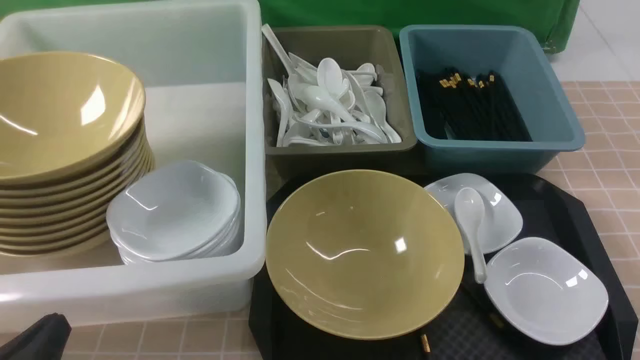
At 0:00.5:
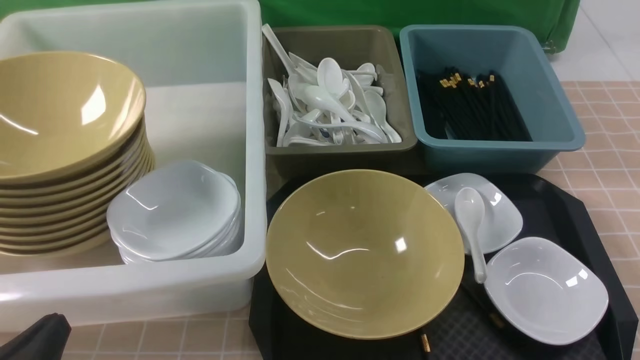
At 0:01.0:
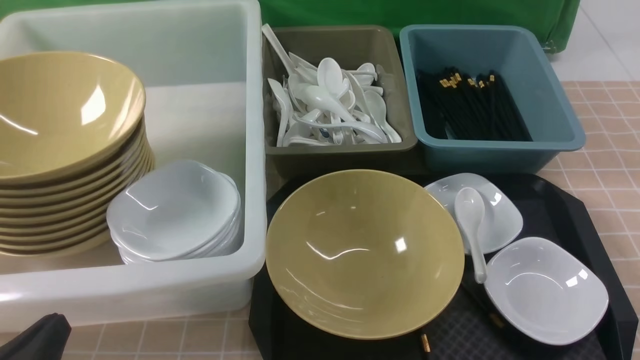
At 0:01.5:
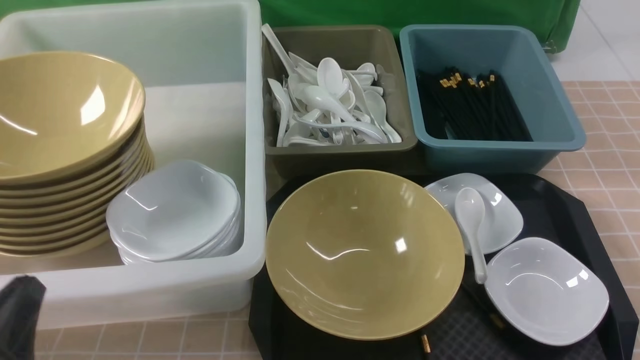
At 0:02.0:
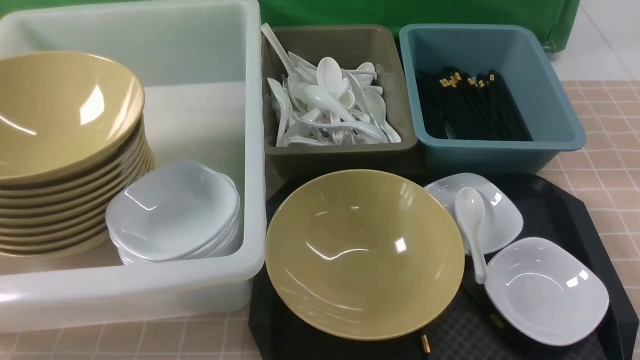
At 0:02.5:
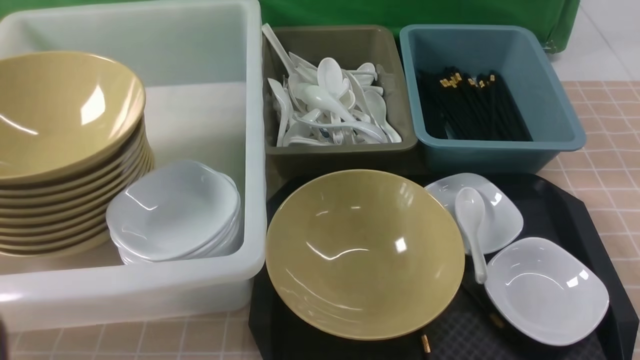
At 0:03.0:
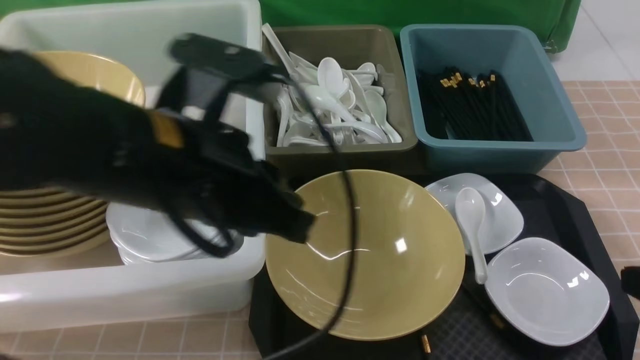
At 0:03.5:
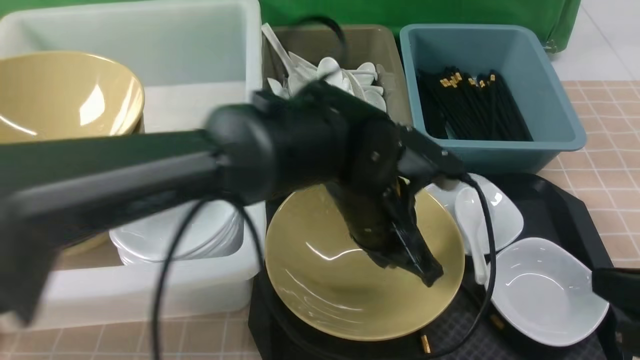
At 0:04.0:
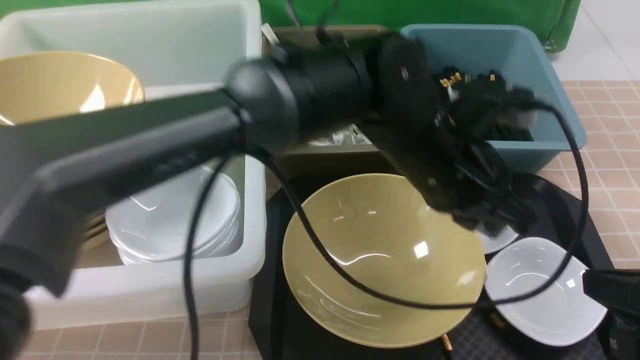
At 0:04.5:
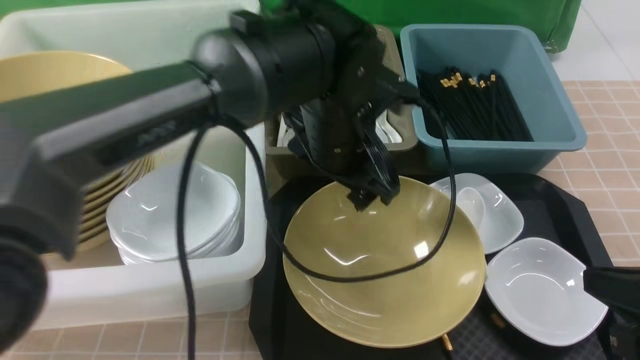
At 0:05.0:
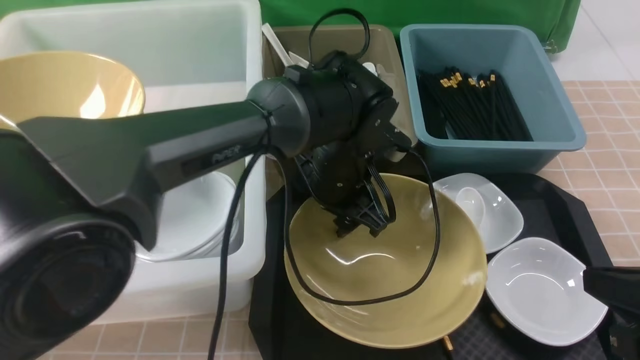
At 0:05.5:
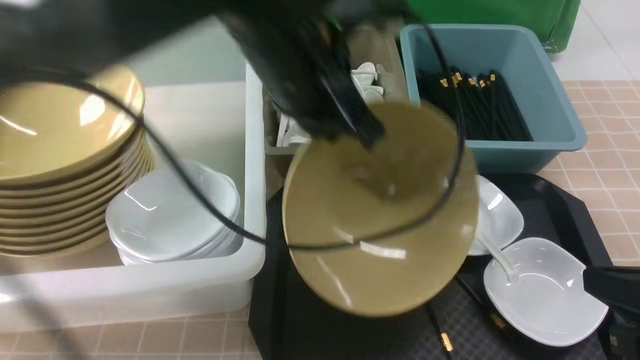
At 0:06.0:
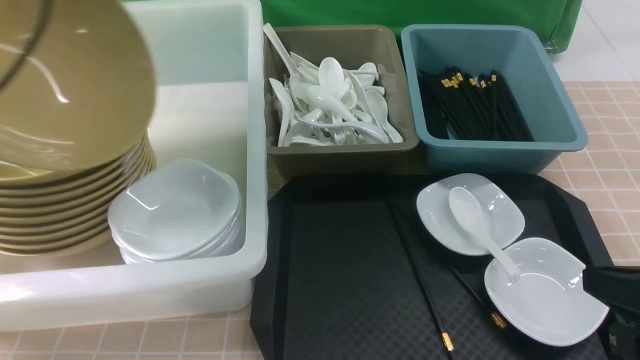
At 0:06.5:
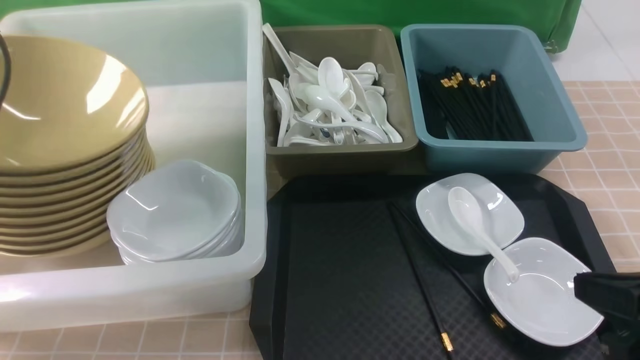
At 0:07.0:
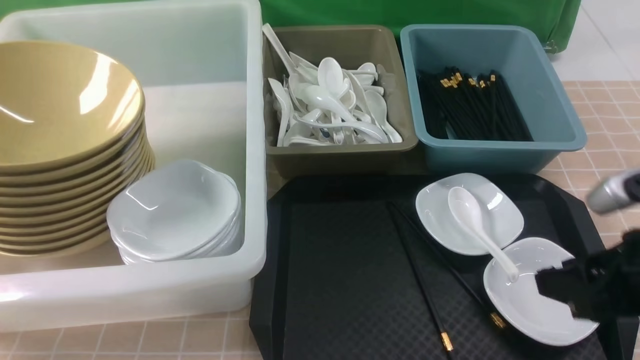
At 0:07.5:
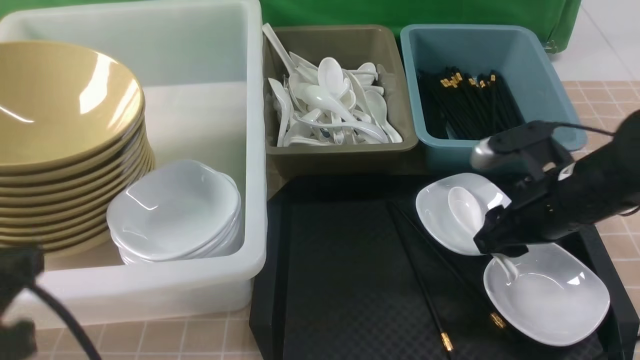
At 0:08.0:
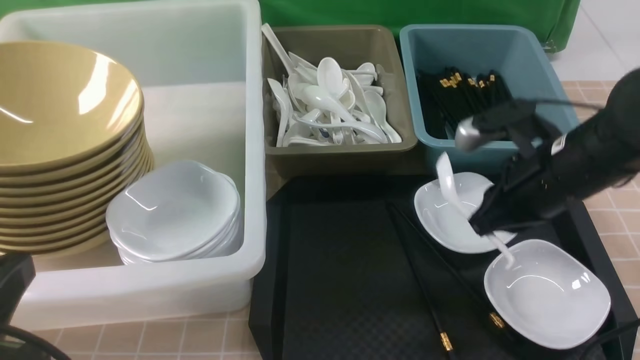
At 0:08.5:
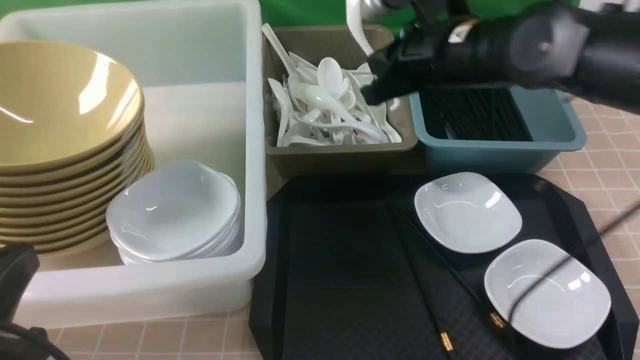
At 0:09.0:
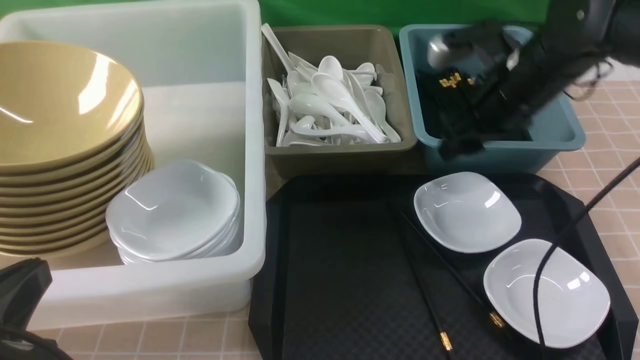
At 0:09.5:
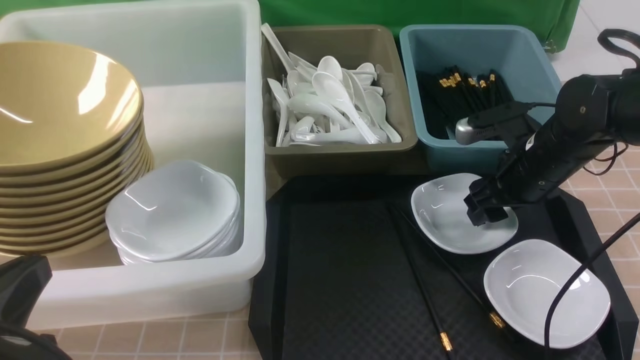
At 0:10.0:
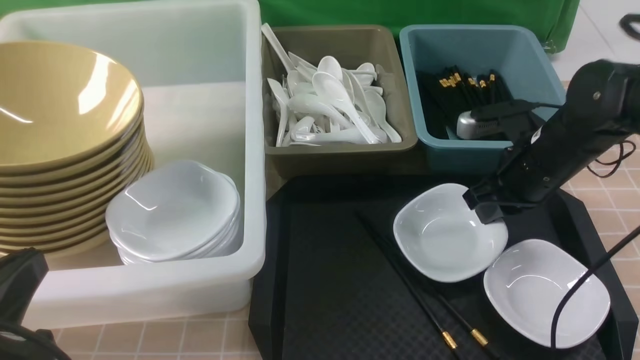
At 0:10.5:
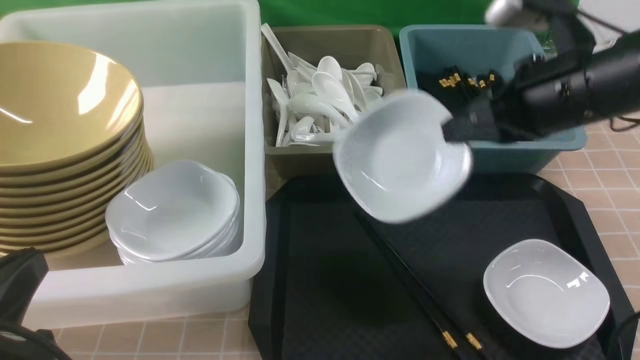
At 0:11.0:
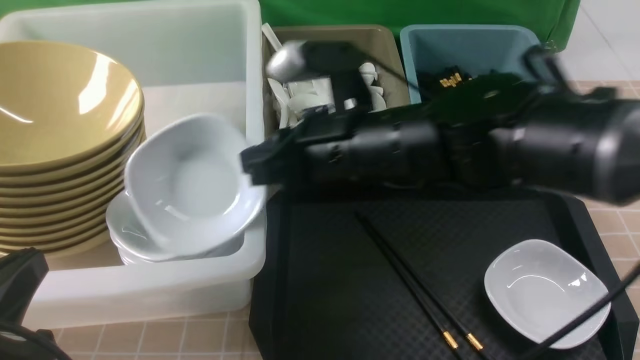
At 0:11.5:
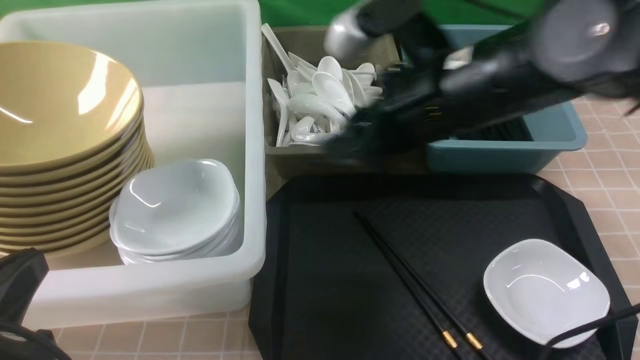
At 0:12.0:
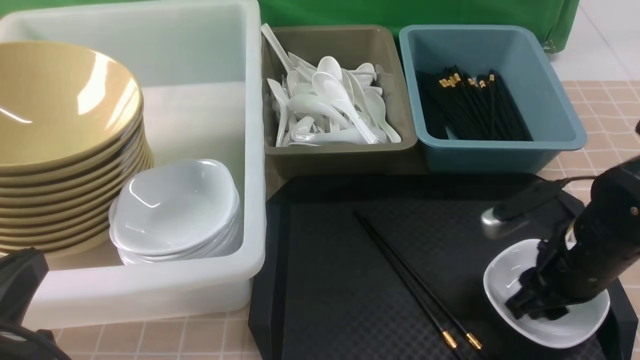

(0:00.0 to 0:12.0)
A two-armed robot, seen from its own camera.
Task of the whole recording: on brown table put chopsticks spoon bowls plates into blue grey white boxes.
Step, 0:00.0 - 0:05.0: use the left arm to grab the yellow noodle bowl on the left.
Step, 0:05.5 - 0:06.5: use the left arm to put the noodle bowl into the large storage box on the left.
Step, 0:07.5 - 0:08.0: use the right arm to grab the soup spoon in the middle.
Step, 0:09.0 - 0:10.0: use the right arm to grab the plate.
Step, 0:10.5 - 0:11.5: use the right arm to put the plate into the large storage box on the left.
0:00.0 - 0:02.0: The left gripper heads upward, covering about 10 cm.
0:02.0 - 0:04.0: The left gripper heads to the right and forward, covering roughly 40 cm, while the right gripper shifts some 10 cm forward, and closes its fingers.
0:04.0 - 0:06.0: The left gripper moves to the left and upward, approximately 40 cm, and opens, then closes once more.
0:06.0 - 0:08.0: The left gripper travels backward and downward by approximately 25 cm, and opens, then closes again; the right gripper is displaced forward and to the left by about 20 cm, and opens, then closes once more.
0:08.0 - 0:10.0: The right gripper moves some 5 cm downward and comes back, and opens, then closes once more.
0:10.0 - 0:12.0: The right gripper heads backward, covering about 10 cm, moves about 20 cm to the left and comes back, and opens.

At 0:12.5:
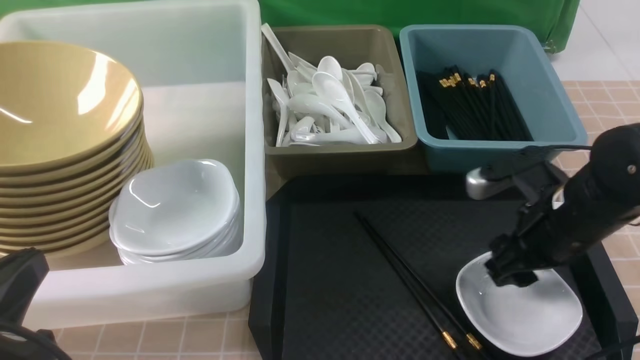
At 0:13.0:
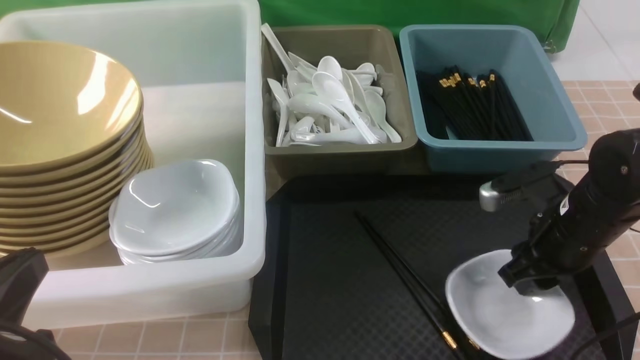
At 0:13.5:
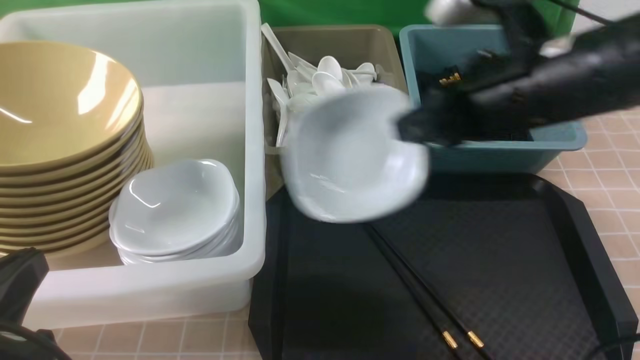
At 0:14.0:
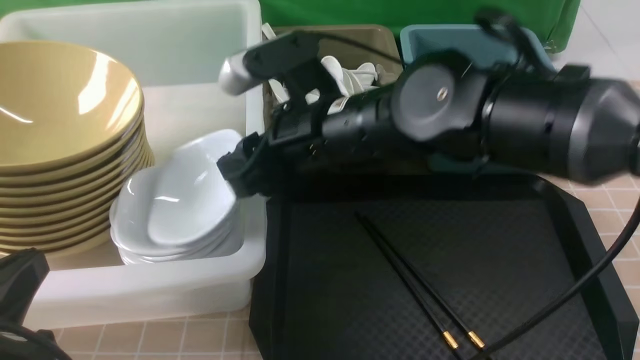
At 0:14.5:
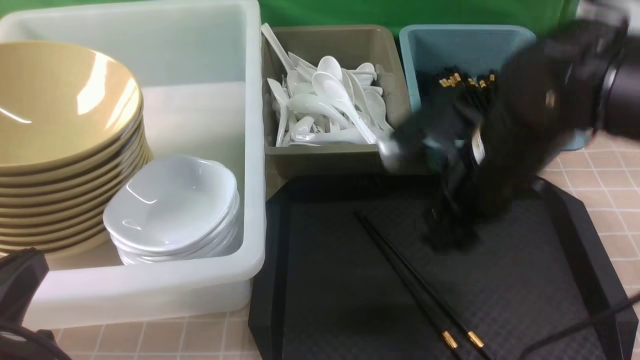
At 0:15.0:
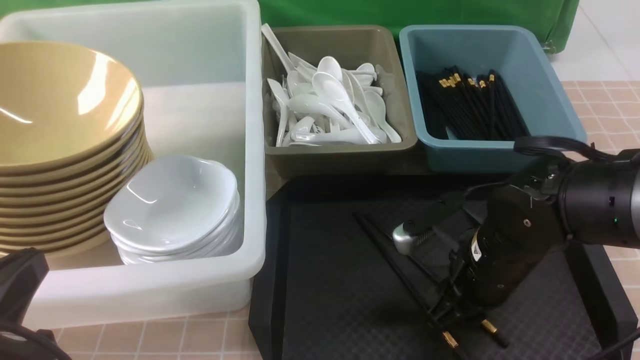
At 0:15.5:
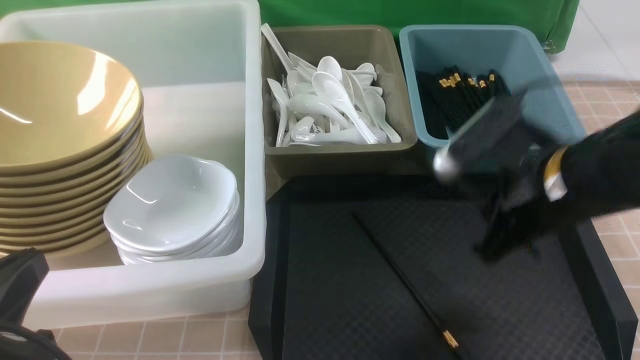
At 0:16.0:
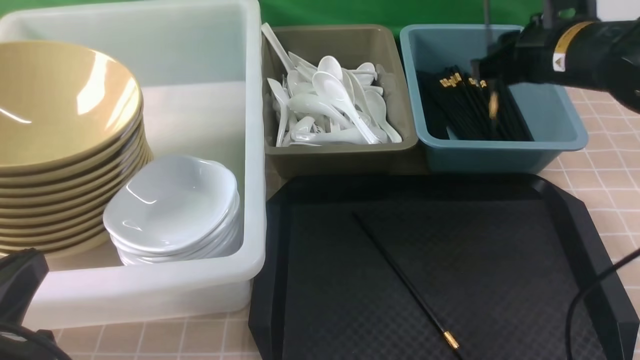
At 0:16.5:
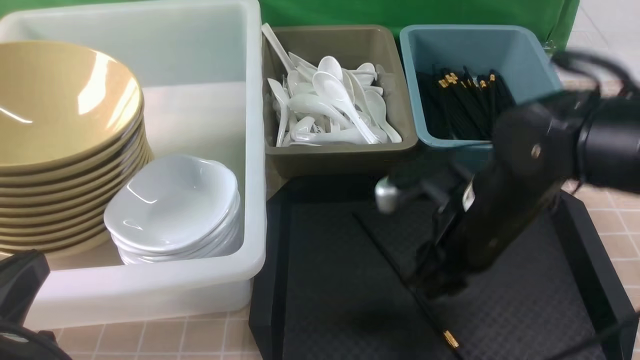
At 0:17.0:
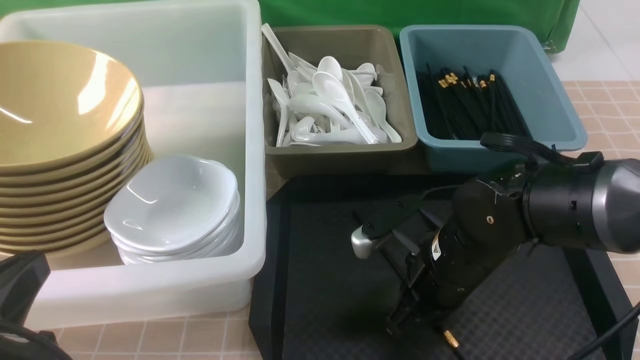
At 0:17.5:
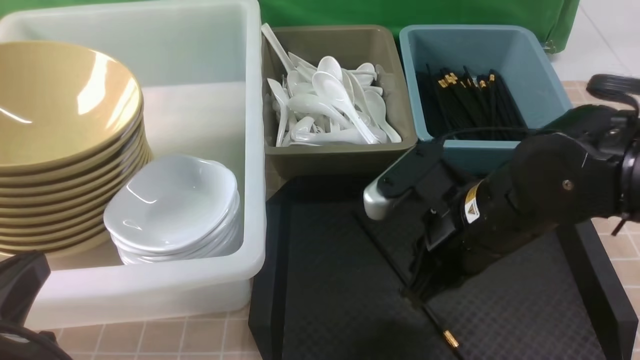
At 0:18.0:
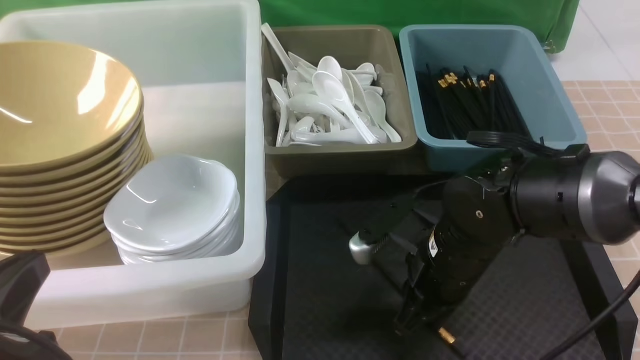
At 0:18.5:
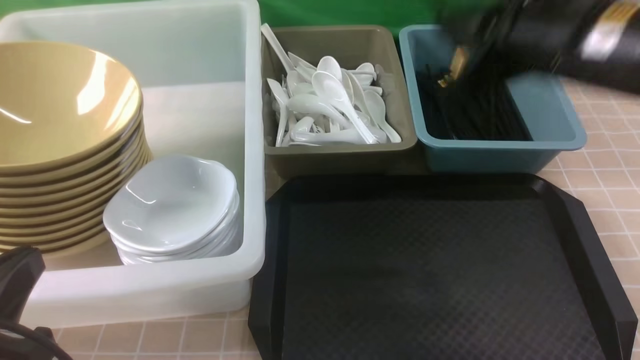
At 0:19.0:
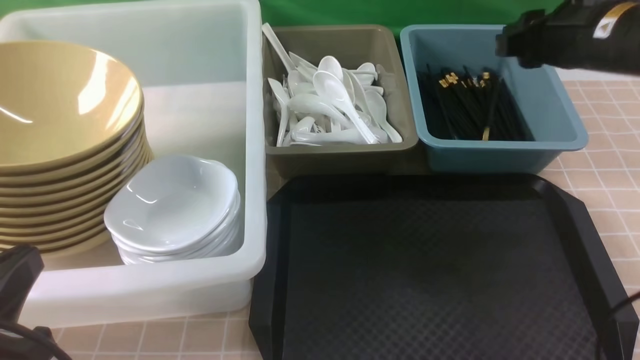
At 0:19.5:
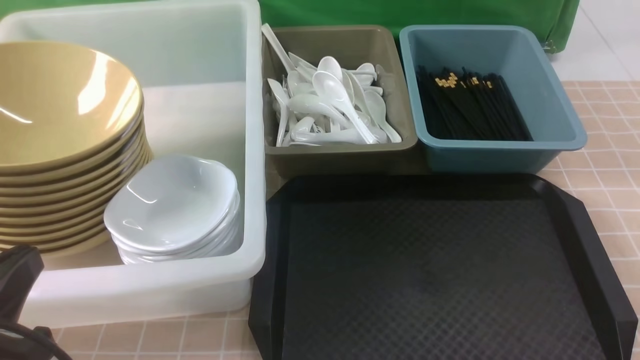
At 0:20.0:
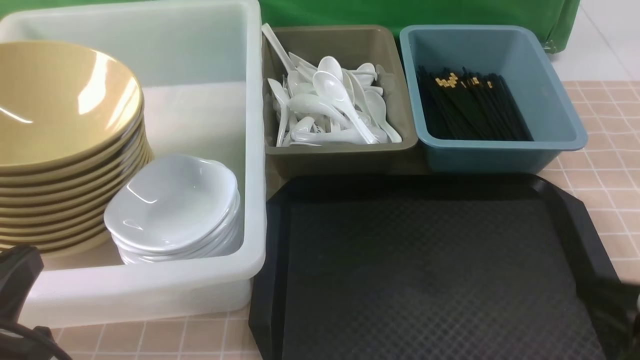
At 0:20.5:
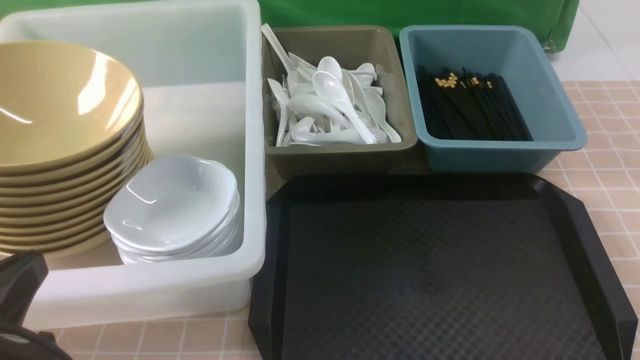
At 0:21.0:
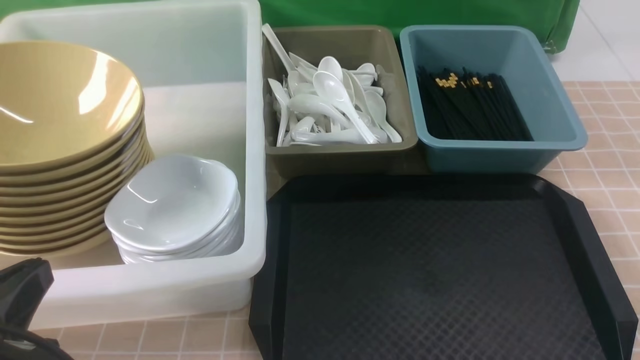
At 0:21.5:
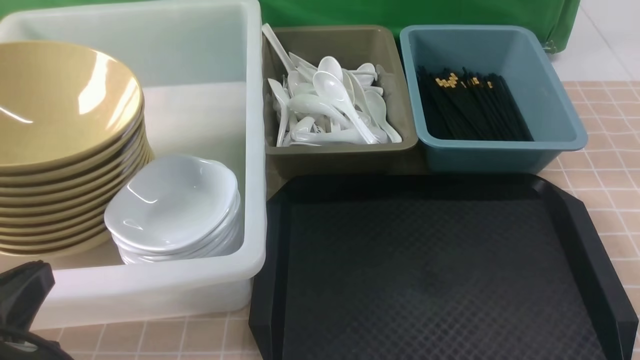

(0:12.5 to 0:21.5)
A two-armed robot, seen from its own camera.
Task of the whole recording: on brown table put chopsticks spoon bowls plates into blue grey white boxes.
Step, 0:13.5 - 0:14.0: use the right arm to put the plate into the large storage box on the left.
Step, 0:14.5 - 0:15.0: use the right arm to grab a chopstick.
Step, 0:15.5 - 0:16.0: use the right arm to put a chopstick into the small storage box on the right.
Step, 0:16.5 - 0:18.0: use the right arm to grab a chopstick.
Step, 0:18.5 - 0:19.0: use the right arm to put a chopstick into the small storage box on the right.
0:12.5 - 0:14.5: The right gripper moves to the left and upward, approximately 10 cm, and closes, then reopens.
0:14.5 - 0:17.0: The right gripper goes up and down, roughly 15 cm each way, reversing 2 times, and closes up.
0:17.0 - 0:19.5: The right gripper moves upward, to the right and backward, roughly 25 cm.
